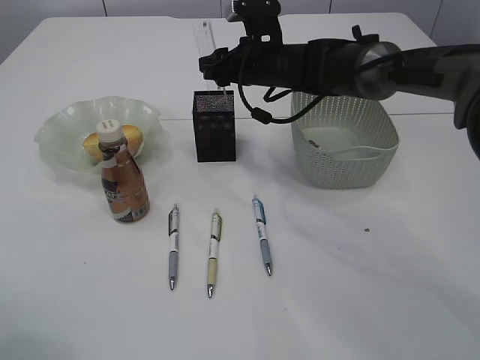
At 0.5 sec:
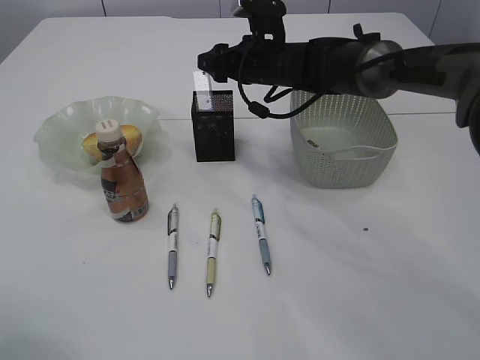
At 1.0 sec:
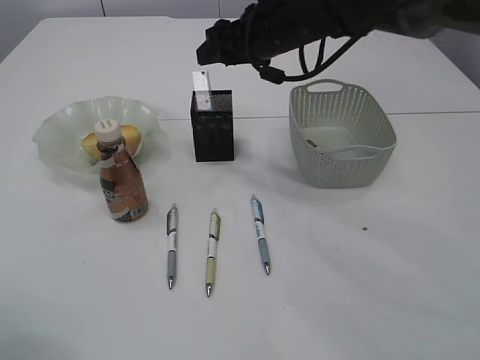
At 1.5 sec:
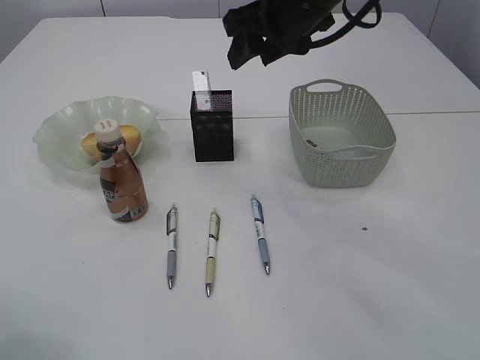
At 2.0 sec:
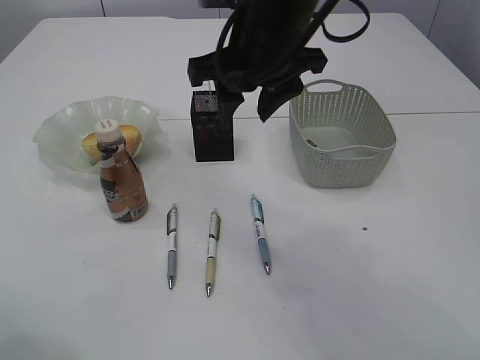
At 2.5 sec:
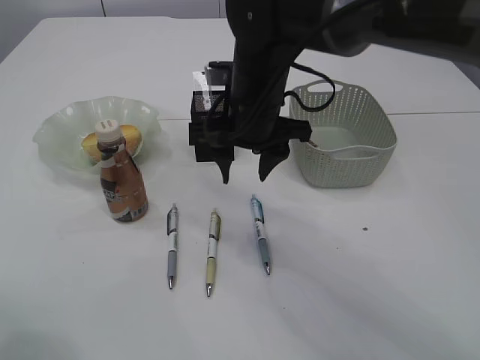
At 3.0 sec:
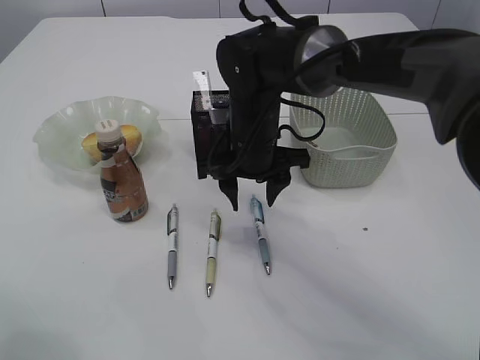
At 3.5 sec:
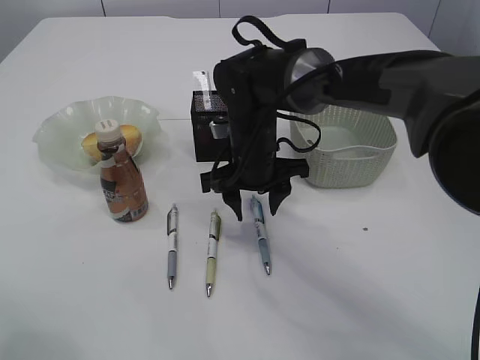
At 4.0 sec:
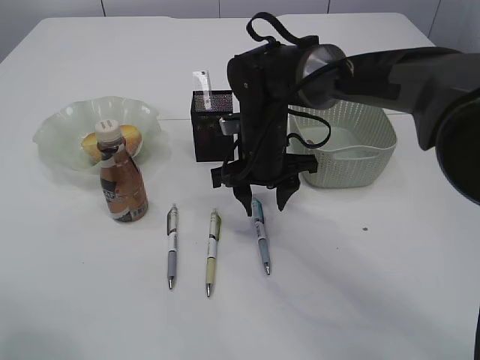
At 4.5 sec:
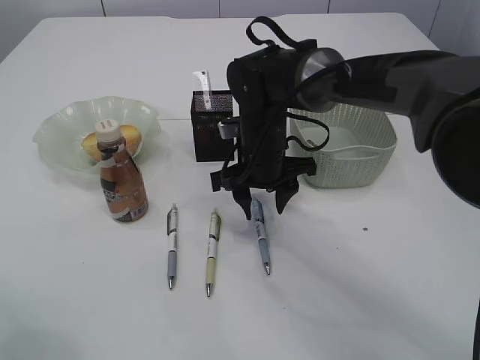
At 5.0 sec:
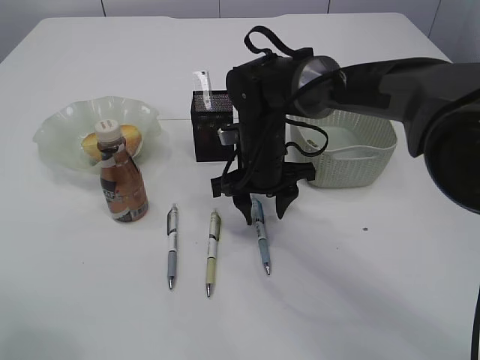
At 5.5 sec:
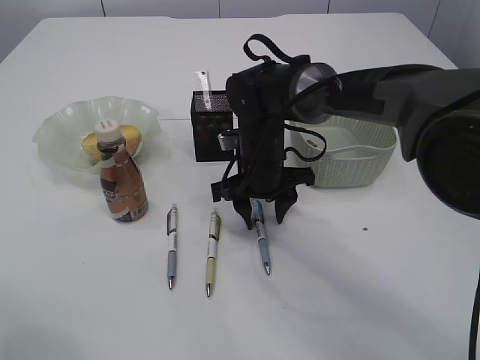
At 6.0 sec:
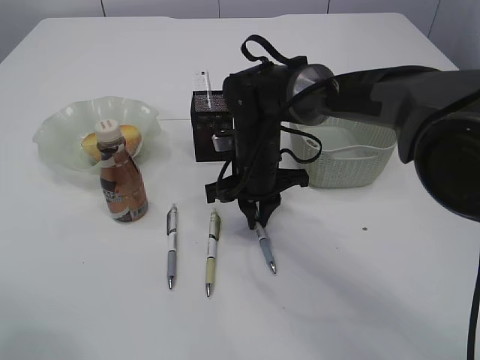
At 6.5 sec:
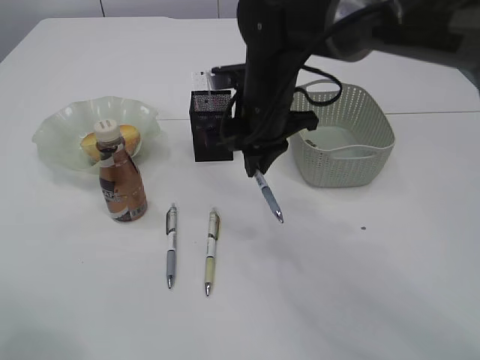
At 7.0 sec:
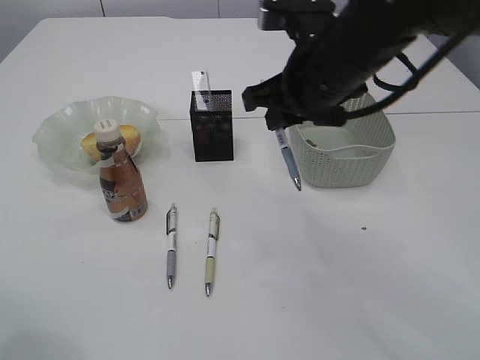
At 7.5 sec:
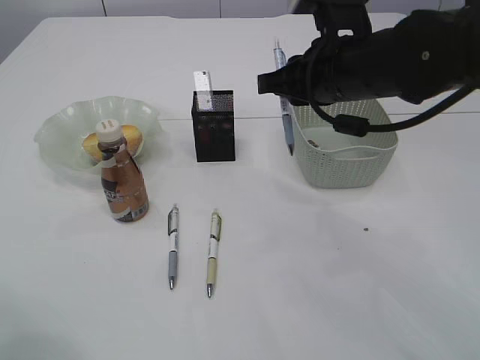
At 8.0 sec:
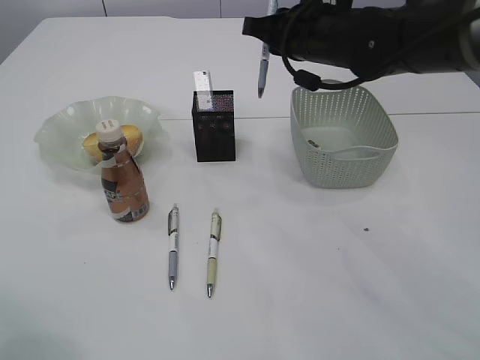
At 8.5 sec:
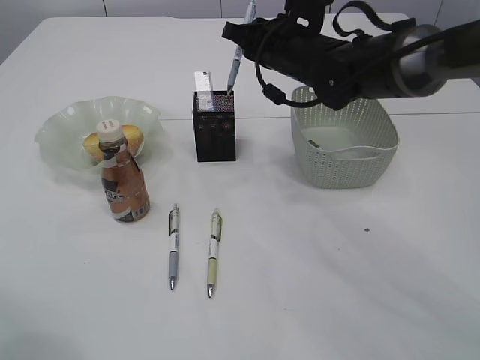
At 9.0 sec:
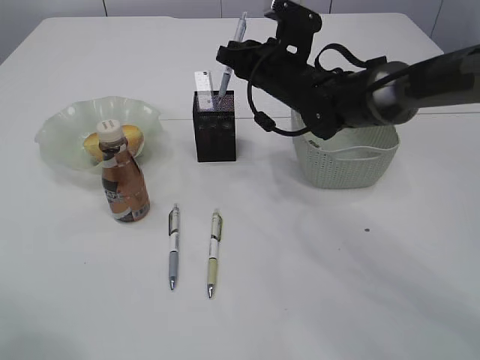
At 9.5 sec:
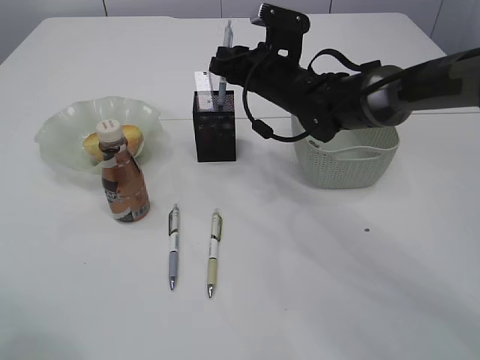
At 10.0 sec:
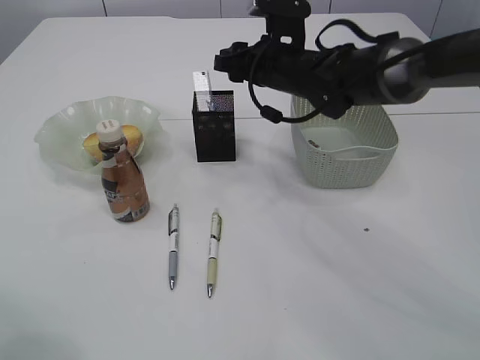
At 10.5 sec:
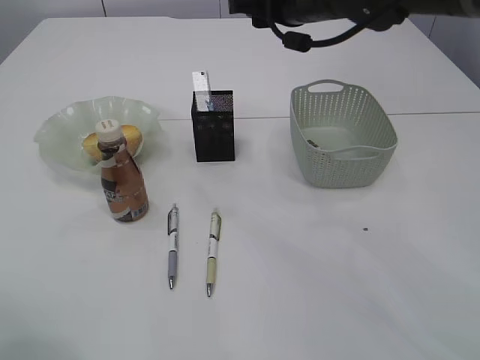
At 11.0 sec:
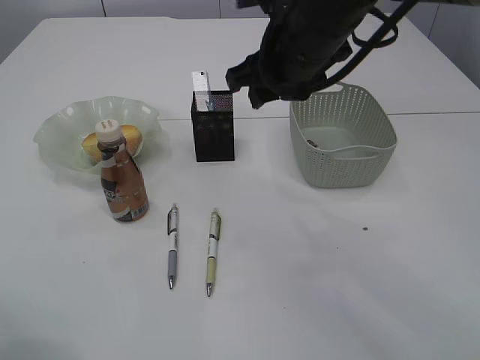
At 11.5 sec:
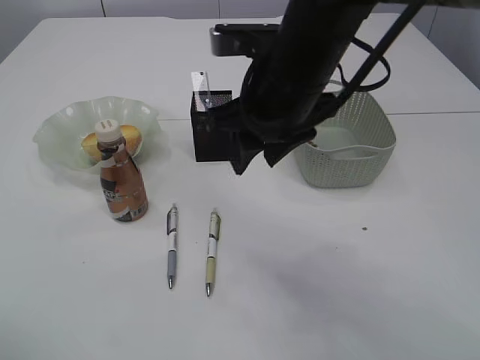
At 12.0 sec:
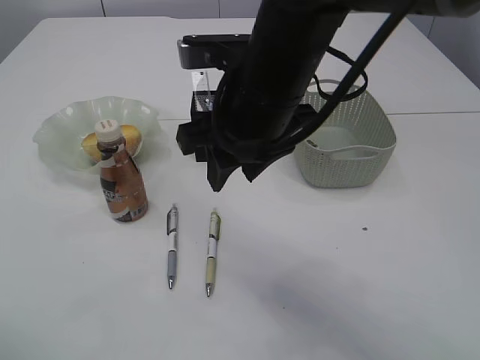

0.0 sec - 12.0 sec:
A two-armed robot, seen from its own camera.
Step, 2.0 sec - 6.5 sec: Pick up the pen with right arm.
Step, 7.0 sec - 10.5 sec: Place the pen into the pen holder.
0.0 sec - 2.0 sec: The right gripper moves backward and upward, about 20 cm.
2.0 sec - 4.0 sec: The right gripper is displaced downward by approximately 15 cm.
4.0 sec - 6.0 sec: The right gripper closes its fingers.
6.0 sec - 8.0 sec: The right gripper is displaced upward and to the right by some 15 cm.
8.0 sec - 10.0 sec: The right gripper goes about 10 cm downward and forward, and opens its fingers.
10.0 sec - 12.0 sec: The right gripper goes approximately 20 cm backward and upward.

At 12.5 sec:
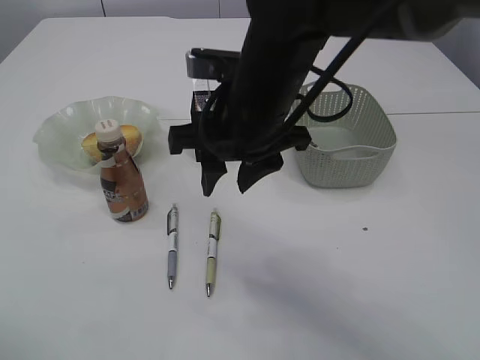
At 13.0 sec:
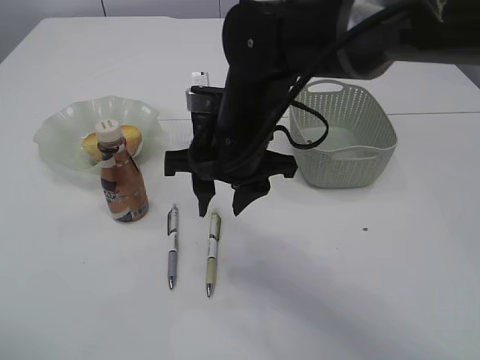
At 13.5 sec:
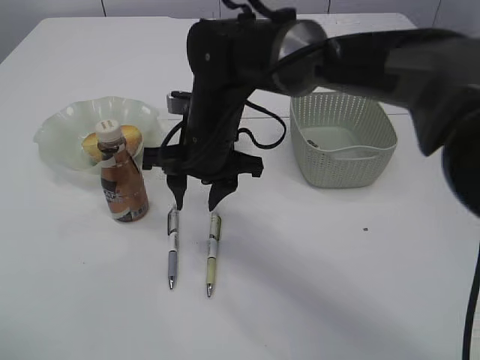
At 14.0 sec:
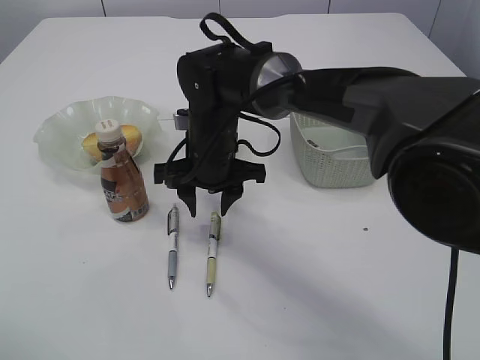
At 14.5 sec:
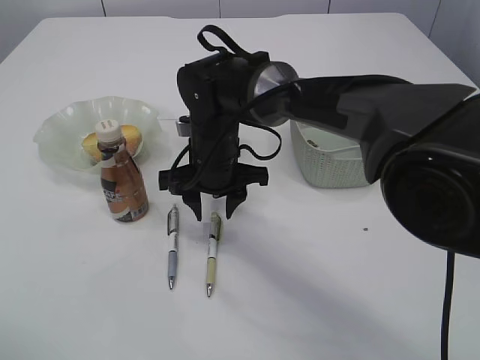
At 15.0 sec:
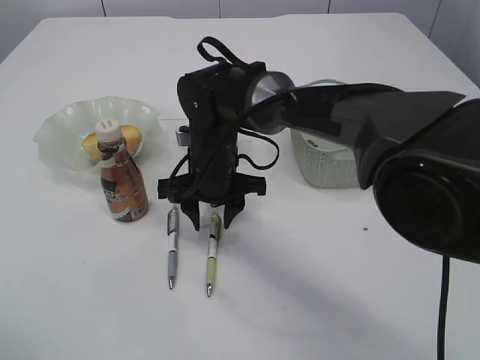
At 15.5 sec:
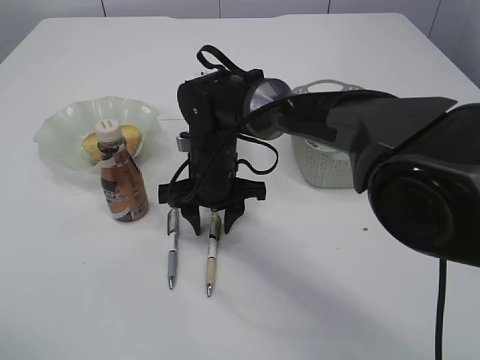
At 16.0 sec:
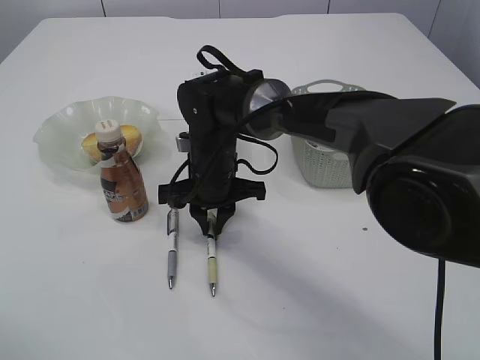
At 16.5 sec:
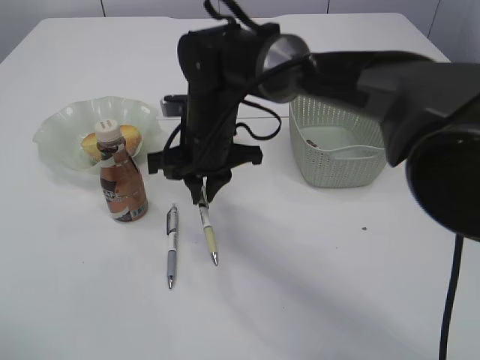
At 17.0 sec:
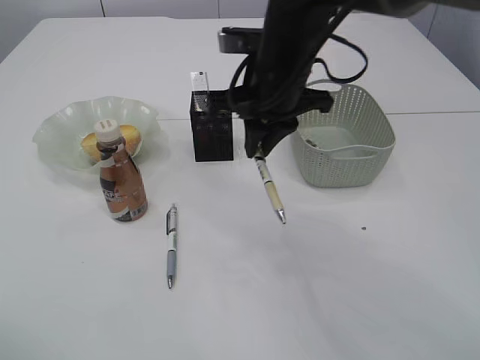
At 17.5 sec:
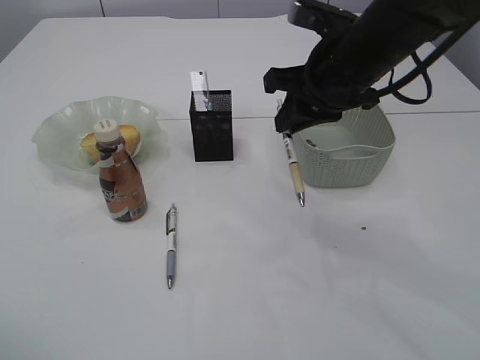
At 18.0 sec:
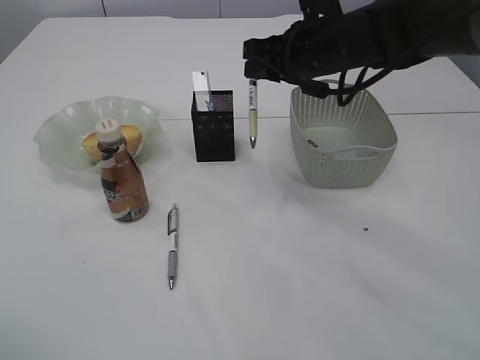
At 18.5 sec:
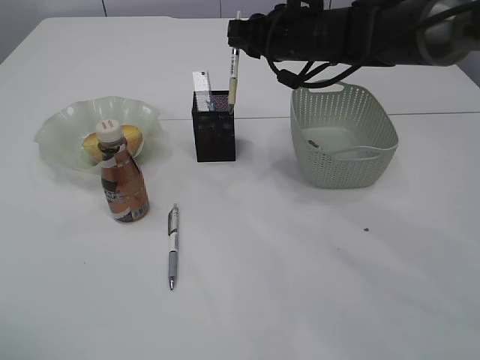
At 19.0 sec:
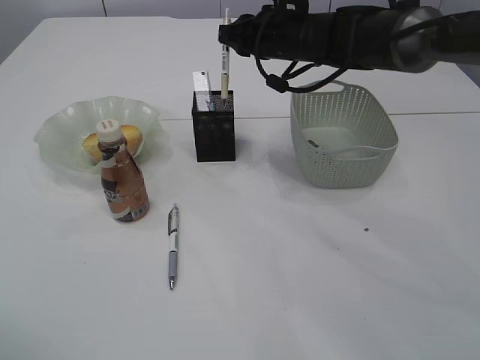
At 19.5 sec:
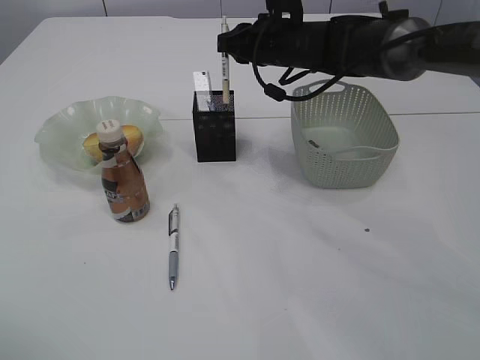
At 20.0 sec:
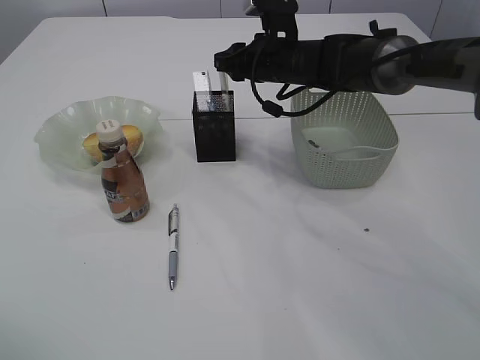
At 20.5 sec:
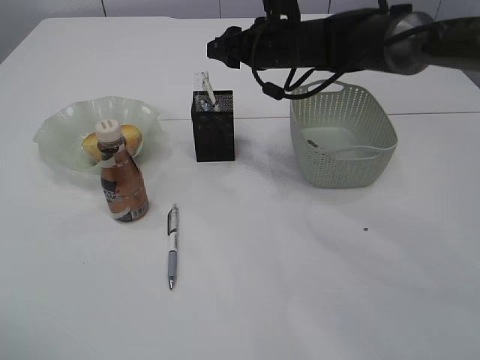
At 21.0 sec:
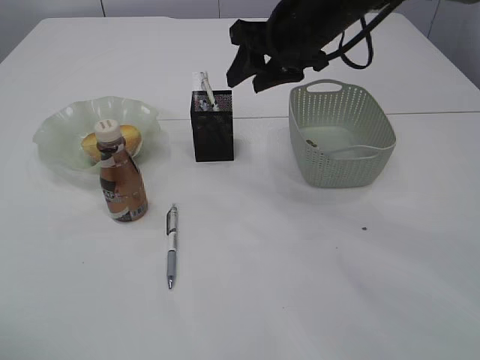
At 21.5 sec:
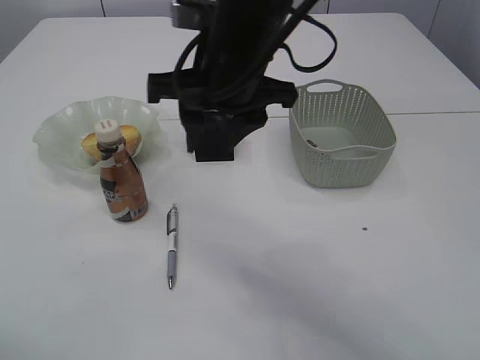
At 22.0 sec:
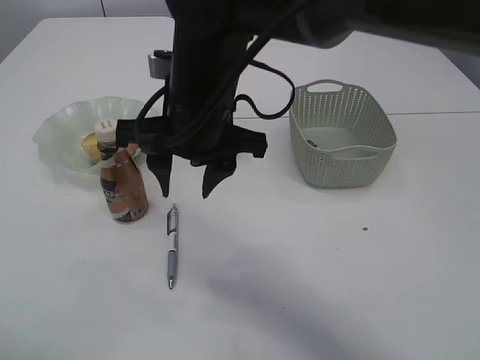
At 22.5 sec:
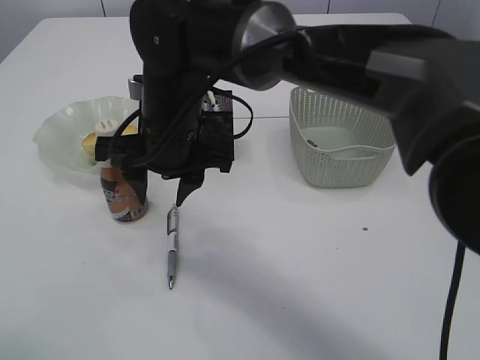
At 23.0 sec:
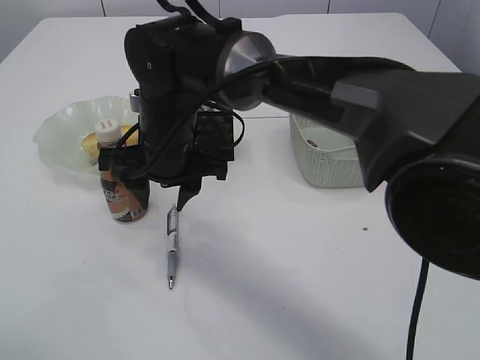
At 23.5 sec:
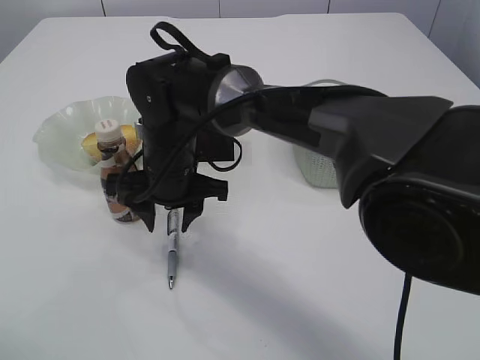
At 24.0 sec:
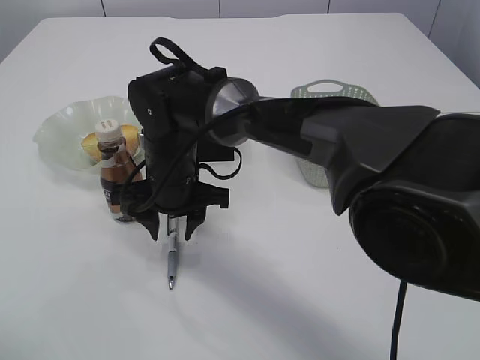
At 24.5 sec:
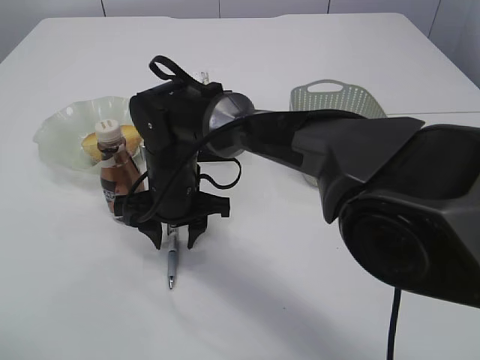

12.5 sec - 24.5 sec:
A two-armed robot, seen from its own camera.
Step, 12.5 sec - 17.0 sec: Pick up the pen with right arm.
Step, 17.5 sec - 21.0 sec: Place the pen into the pen holder.
12.5 sec - 14.5 sec: The right gripper heads downward and forward, covering some 15 cm.
14.5 sec - 16.5 sec: The right gripper closes up.
16.5 sec - 18.5 sec: The right gripper moves to the right, upward and forward, roughly 15 cm.
18.5 sec - 20.5 sec: The right gripper opens up.
20.5 sec - 22.5 sec: The right gripper is displaced backward and to the left by some 20 cm.
22.5 sec - 24.5 sec: The right gripper travels downward by approximately 10 cm.

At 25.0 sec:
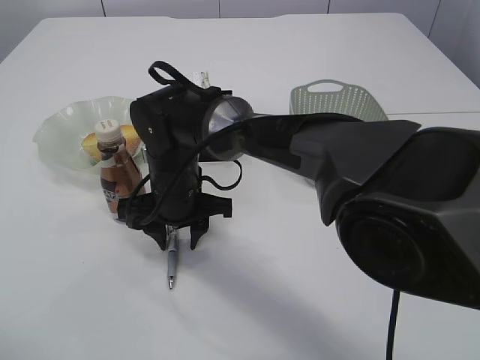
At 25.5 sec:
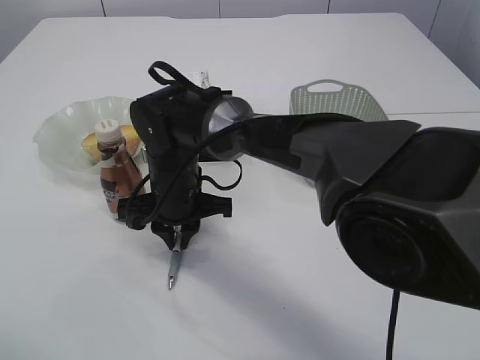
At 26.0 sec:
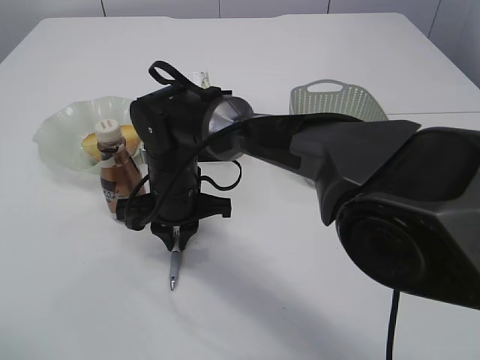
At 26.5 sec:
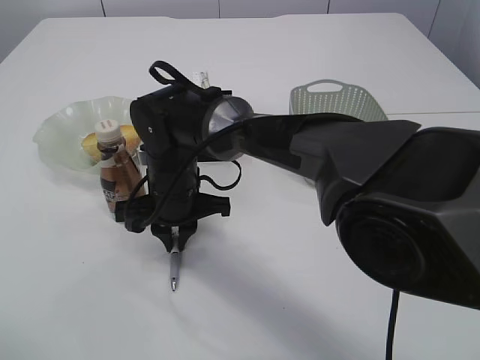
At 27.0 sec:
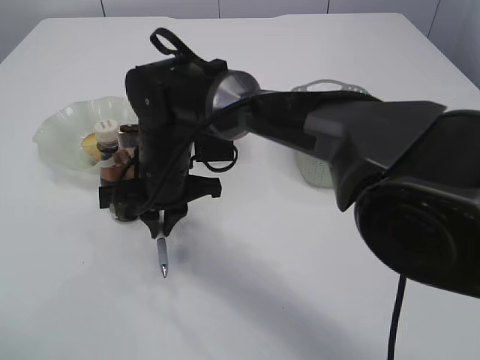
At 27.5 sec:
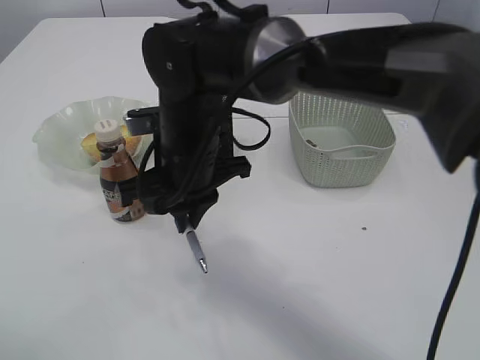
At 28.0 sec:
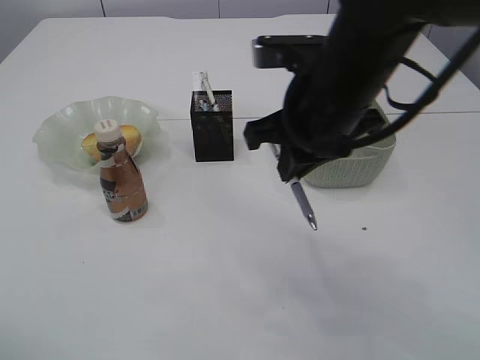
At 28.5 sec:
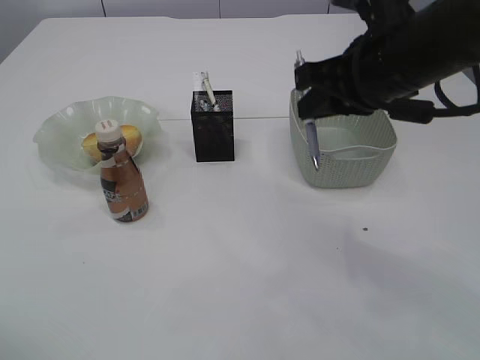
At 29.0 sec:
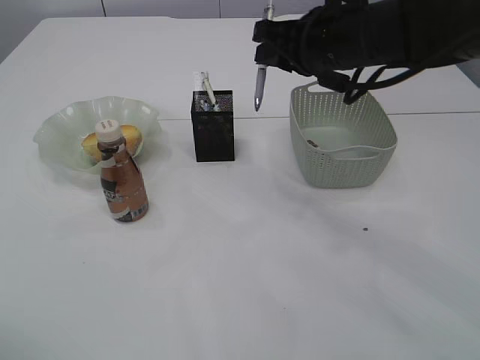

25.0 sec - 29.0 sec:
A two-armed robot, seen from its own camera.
Step, 25.0 sec - 27.5 sec: Pick up the pen with right arm.
25.0 sec - 27.0 sec: The right gripper closes up.
27.0 sec - 29.0 sec: The right gripper moves to the right and upward, roughly 25 cm.
